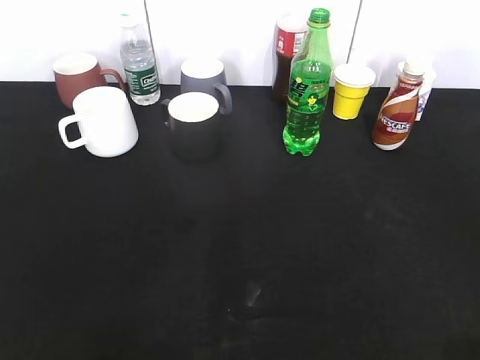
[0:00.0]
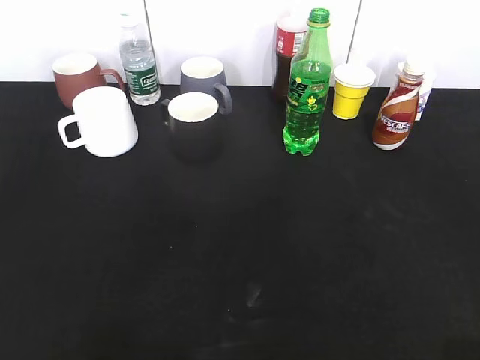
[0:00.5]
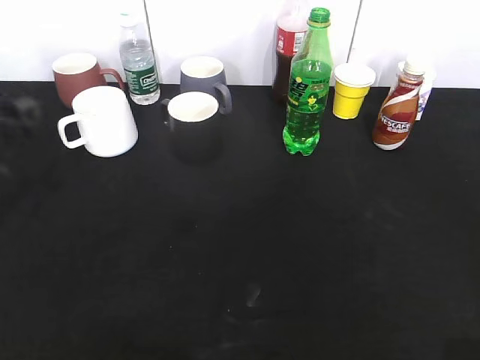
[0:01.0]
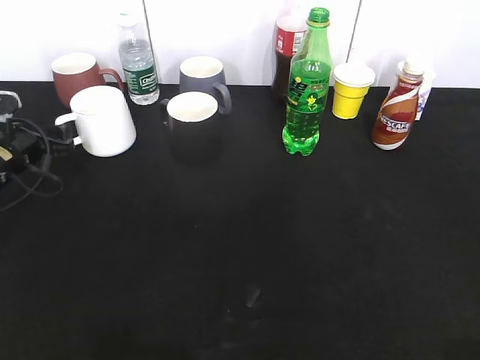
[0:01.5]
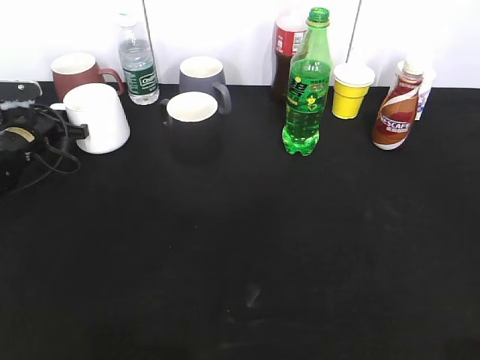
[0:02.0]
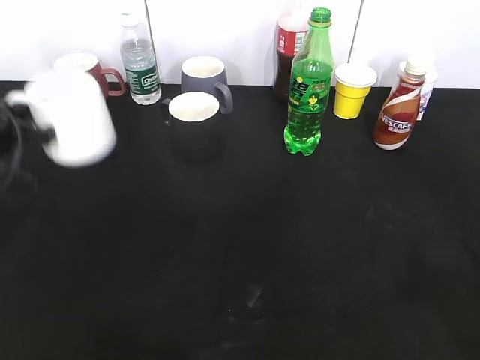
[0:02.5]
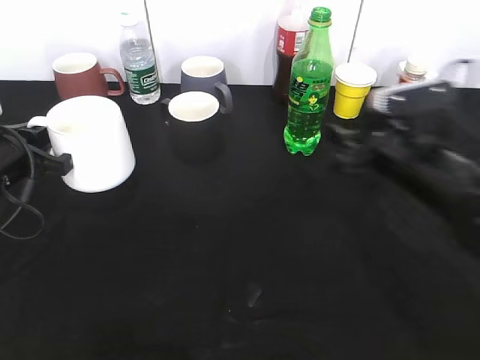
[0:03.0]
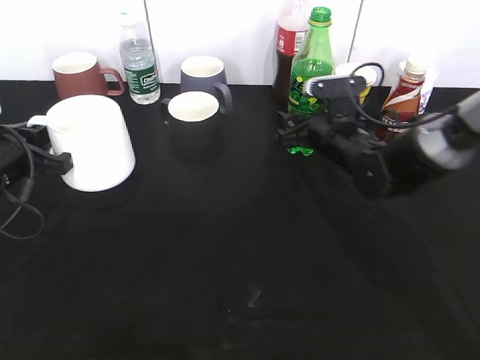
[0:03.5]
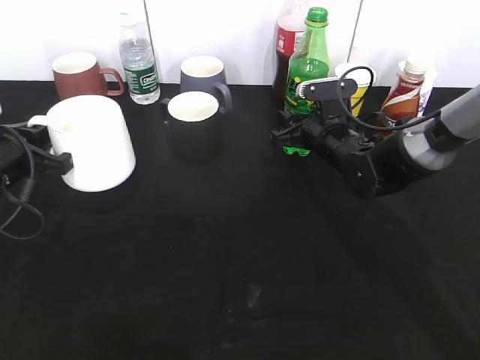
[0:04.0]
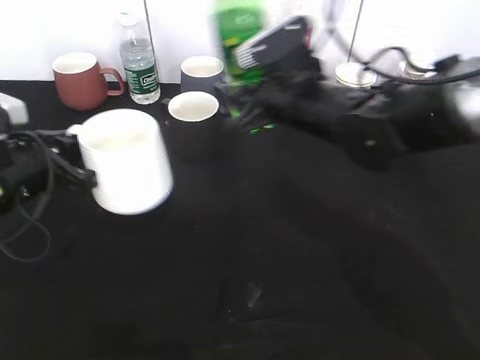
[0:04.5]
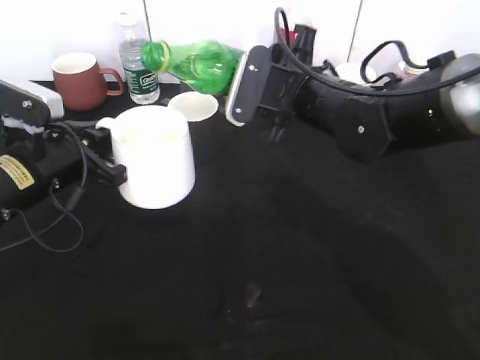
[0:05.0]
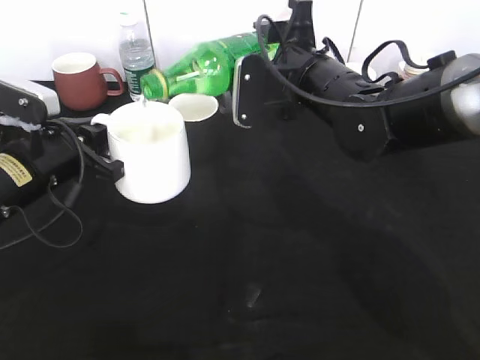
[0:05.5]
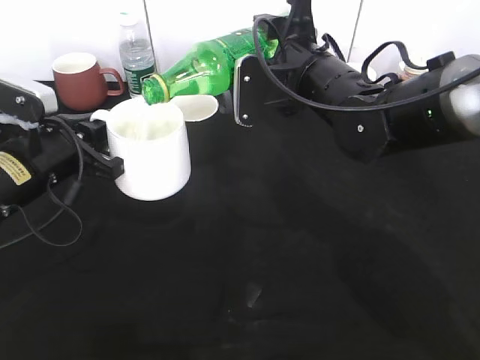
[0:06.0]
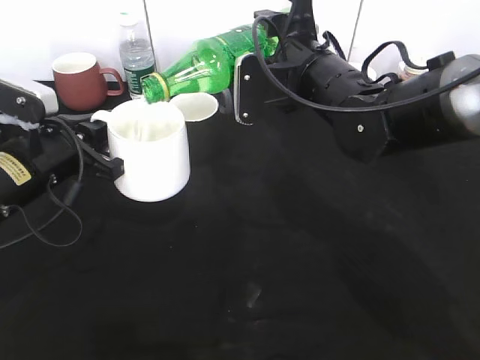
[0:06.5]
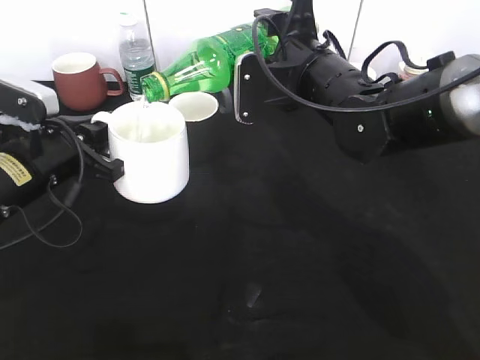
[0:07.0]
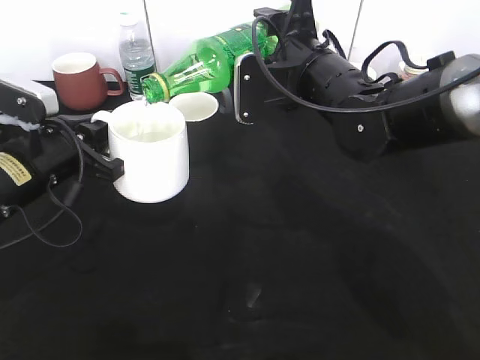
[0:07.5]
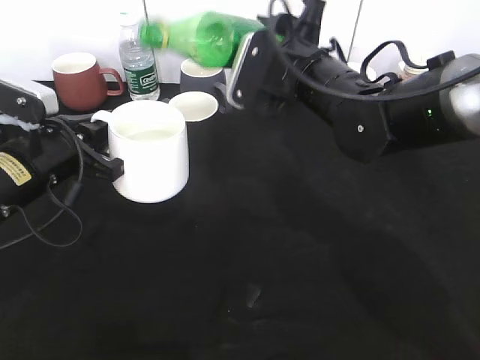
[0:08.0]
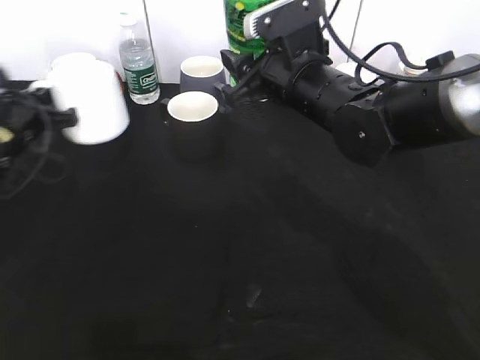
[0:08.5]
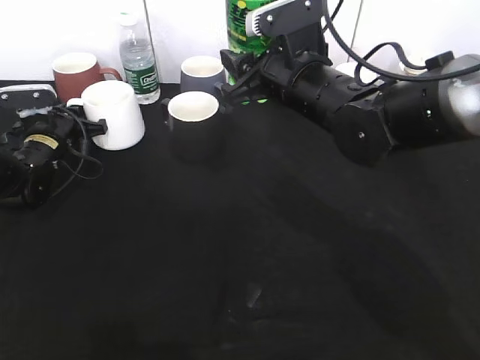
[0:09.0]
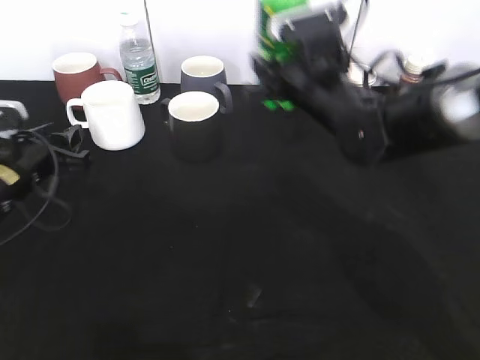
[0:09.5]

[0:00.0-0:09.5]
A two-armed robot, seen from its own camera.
Step, 0:00.0 to 0:01.5: Grasp the white cup with left gripper.
Step, 0:03.0 to 0:03.5: Grasp the bottle with sprite with right gripper.
Step, 0:04.0 to 0:08.0: Pour the sprite from bottle to cup with right gripper.
Step, 0:08.5 to 0:09.0: Place the white cup on the table with left gripper.
0:00.0 to 0:02.0: The left gripper moves forward and downward, approximately 50 cm, and closes up.
0:02.0 to 0:04.0: The right gripper shifts approximately 50 cm forward, downward and to the left, and closes up. The left gripper travels backward and upward by approximately 15 cm.
0:04.0 to 0:05.5: The left gripper travels to the right by some 5 cm; the right gripper travels upward and backward by about 15 cm.
0:05.5 to 0:07.5: The grippers move only a little.
0:07.5 to 0:09.5: The left gripper moves to the left, roughly 5 cm, reaches approximately 15 cm forward, then returns, and opens its fingers.

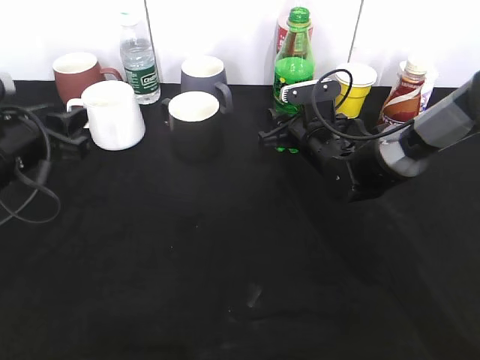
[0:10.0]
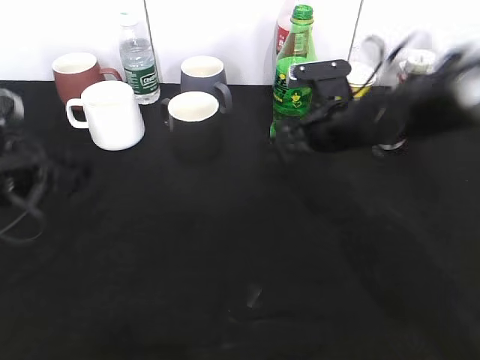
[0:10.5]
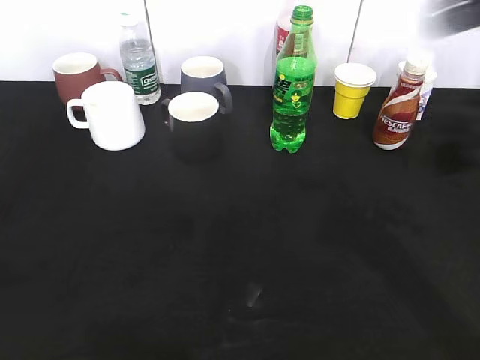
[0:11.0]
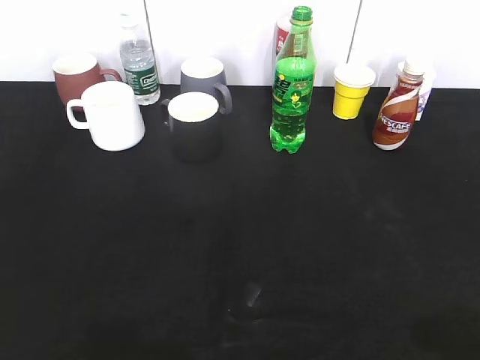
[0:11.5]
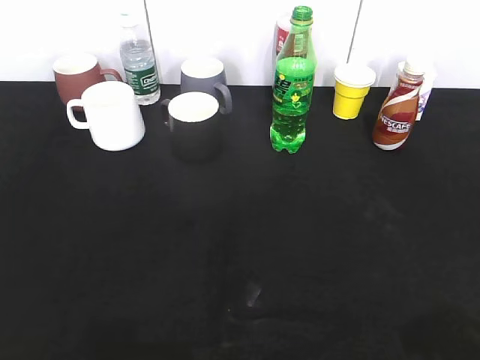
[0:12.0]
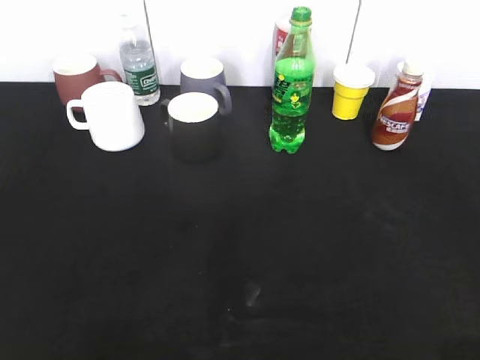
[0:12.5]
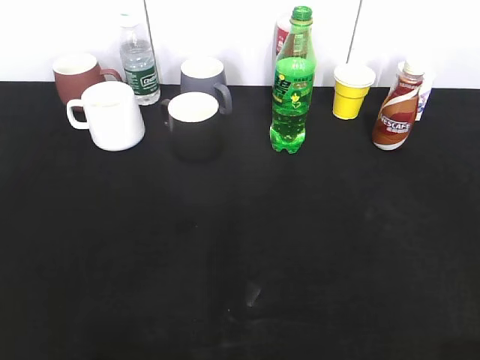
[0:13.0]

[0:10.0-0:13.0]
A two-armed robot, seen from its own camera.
0:10.0 to 0:11.5: The left gripper is displaced backward and upward by about 30 cm. The right gripper moves backward, upward and to the right, about 50 cm, and opens its fingers.
